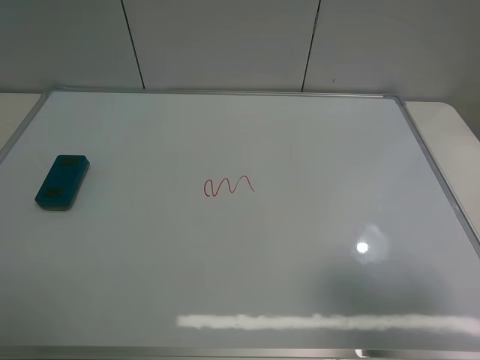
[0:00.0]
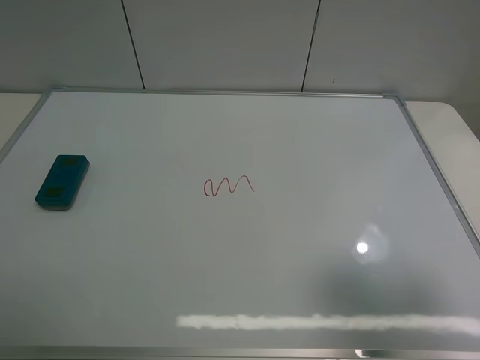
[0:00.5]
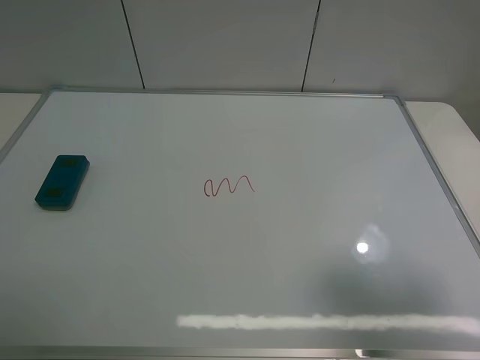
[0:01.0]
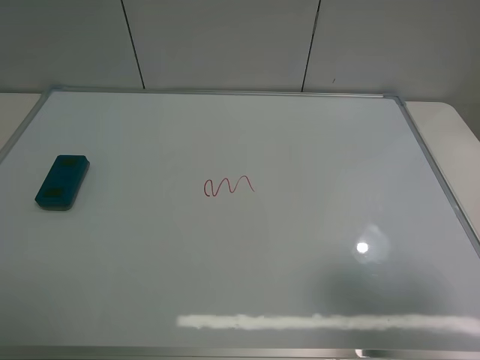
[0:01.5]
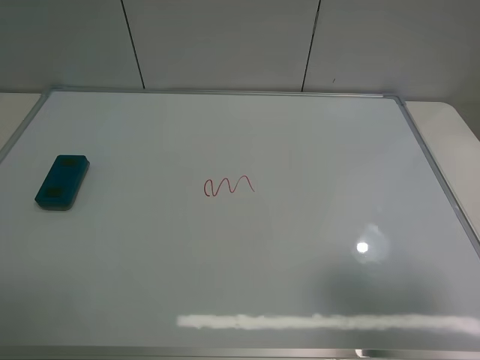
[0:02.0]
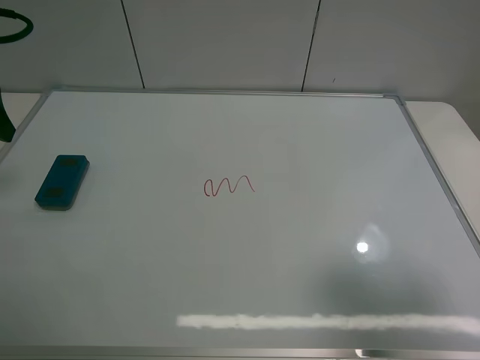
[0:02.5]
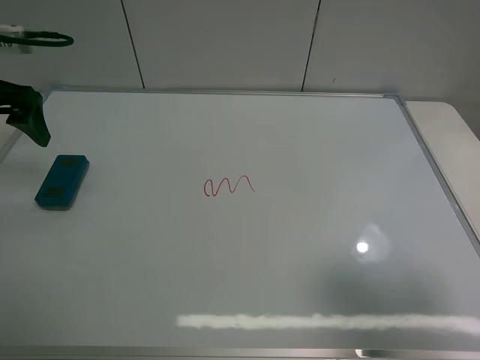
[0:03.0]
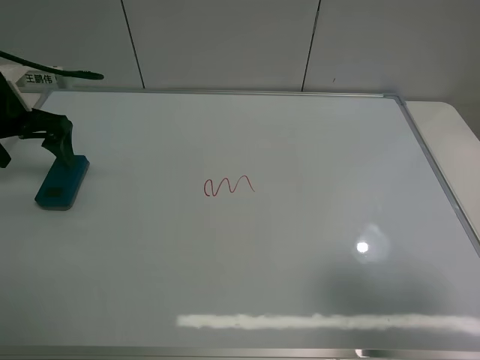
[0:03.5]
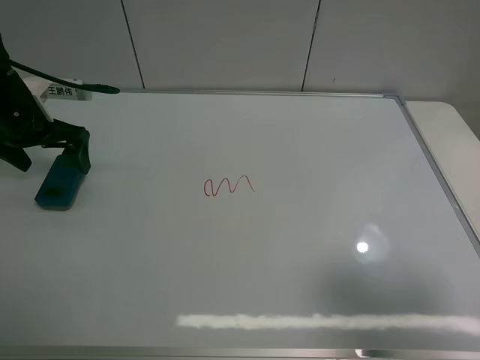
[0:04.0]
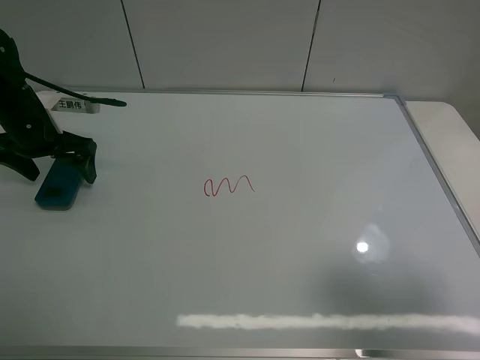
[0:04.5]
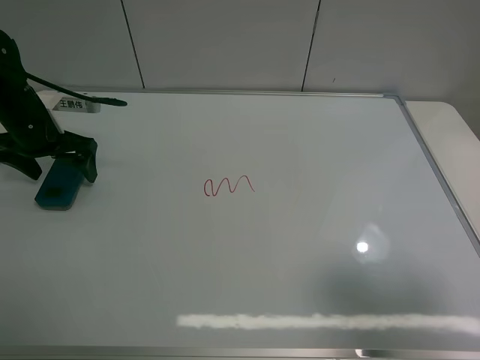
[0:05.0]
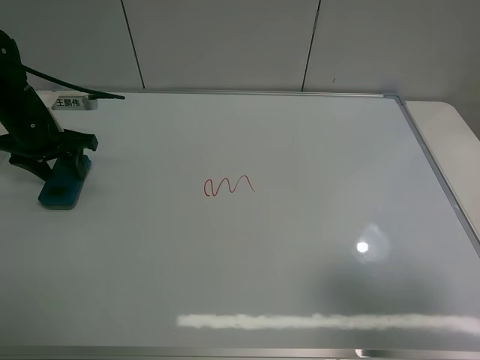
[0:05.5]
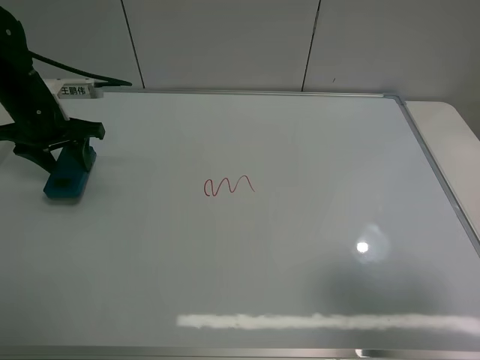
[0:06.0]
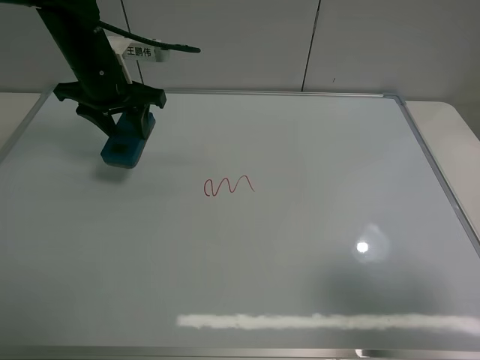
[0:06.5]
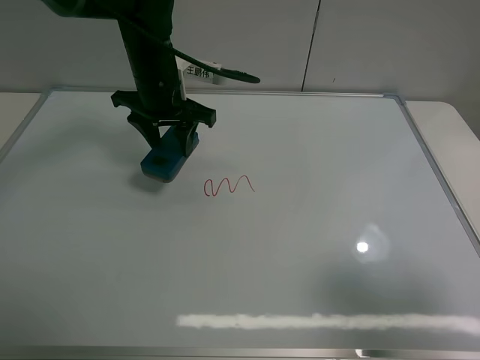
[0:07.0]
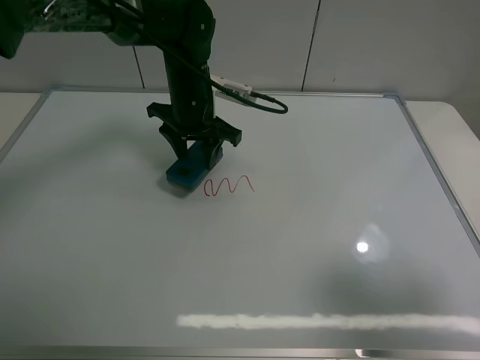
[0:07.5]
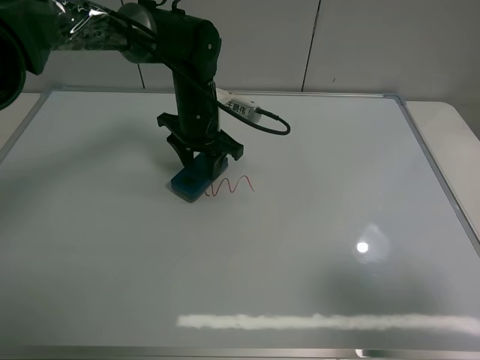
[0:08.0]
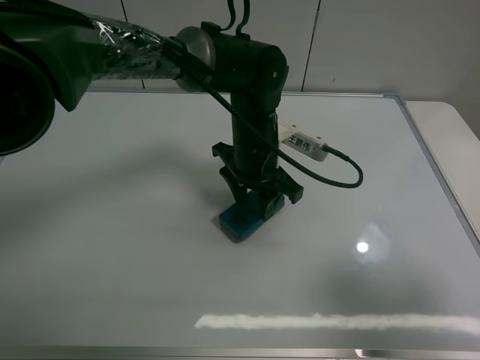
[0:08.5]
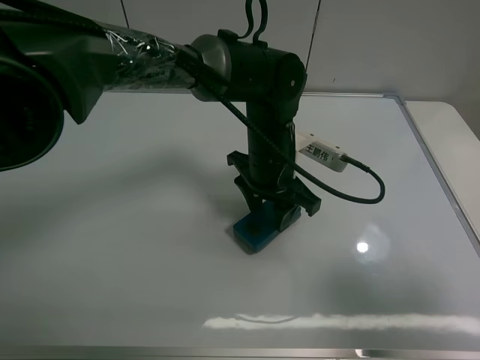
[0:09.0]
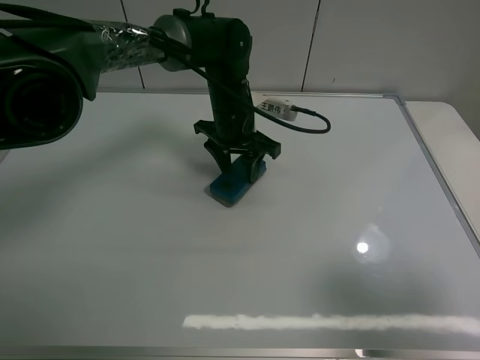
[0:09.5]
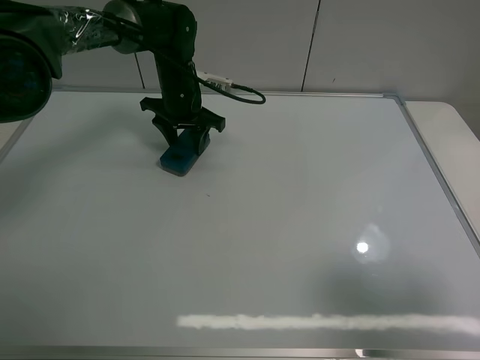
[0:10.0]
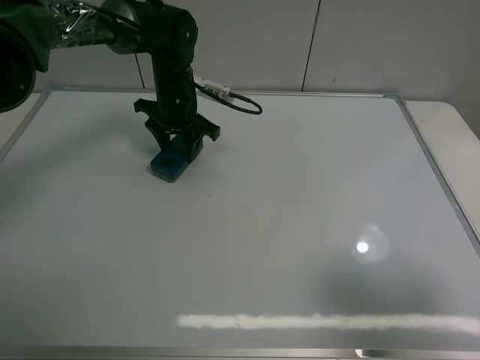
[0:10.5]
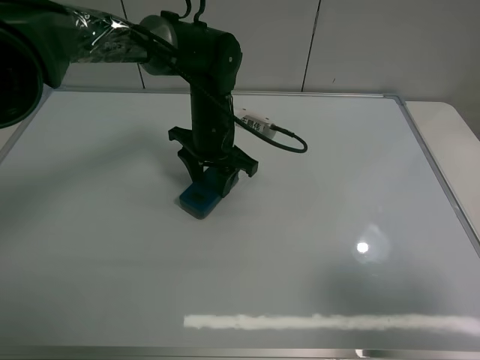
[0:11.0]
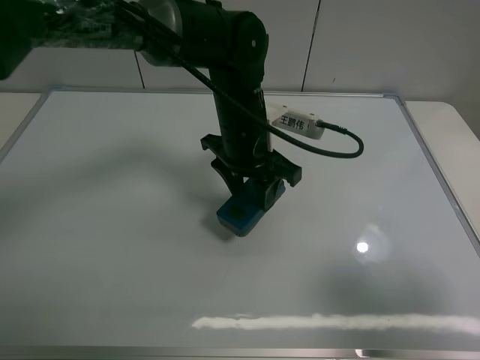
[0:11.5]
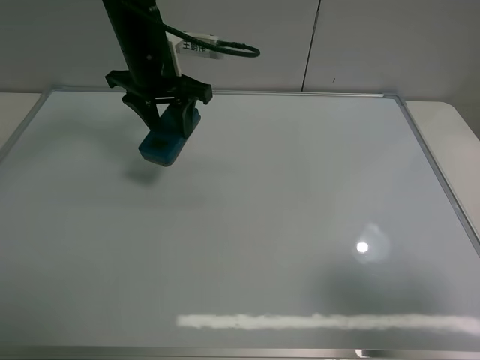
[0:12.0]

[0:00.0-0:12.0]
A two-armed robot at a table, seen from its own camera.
Task of the whole recording: use the left claw to pick up the whiteboard eraser, wipe the notes on the whiteboard clean, and then put them back in place.
Step, 0:00.0 to 0:05.5: Grasp the eraser with the left gripper.
Step, 0:06.0 to 0:11.0: Grasp the eraser and wipe the blackboard with the left gripper.
0:02.0 to 0:04.0: The left gripper goes approximately 25 cm forward and downward.
0:04.0 to 0:06.0: The left gripper closes its fingers.
0:06.0 to 0:08.0: The left gripper shifts some 25 cm to the right.
0:08.0 to 0:10.0: The left gripper goes roughly 5 cm forward, and goes to the right and returns, approximately 10 cm each way.
0:10.0 to 0:12.0: The left gripper goes roughly 10 cm upward and backward.

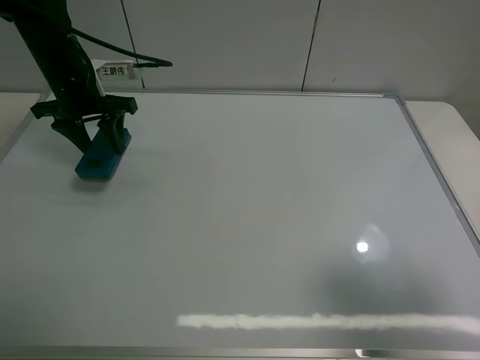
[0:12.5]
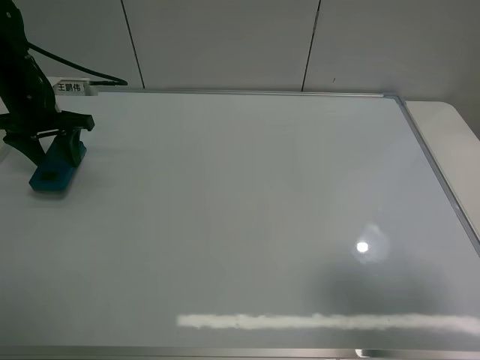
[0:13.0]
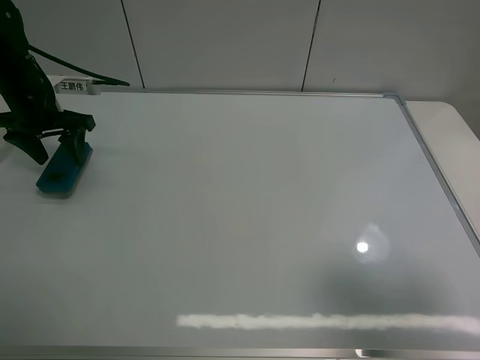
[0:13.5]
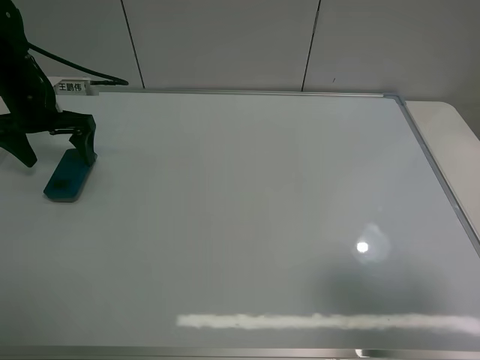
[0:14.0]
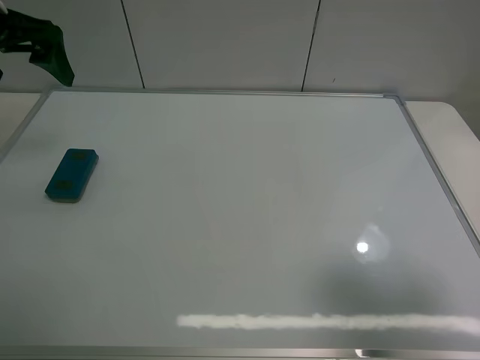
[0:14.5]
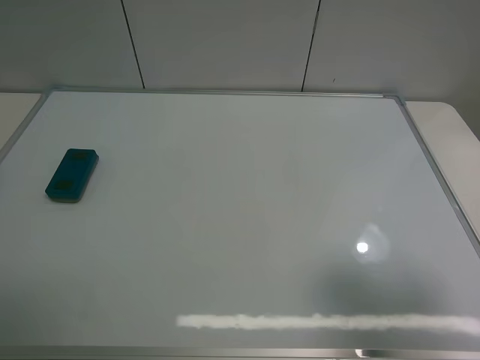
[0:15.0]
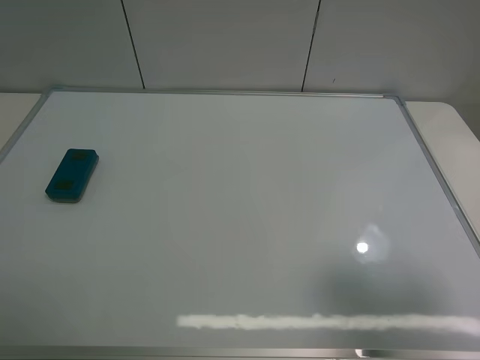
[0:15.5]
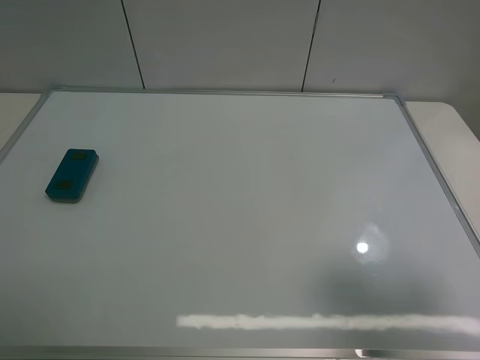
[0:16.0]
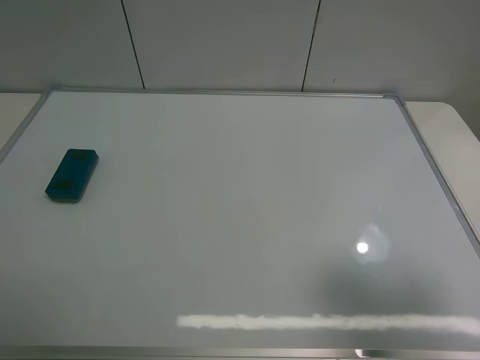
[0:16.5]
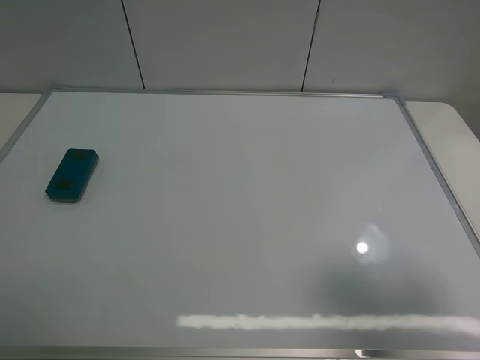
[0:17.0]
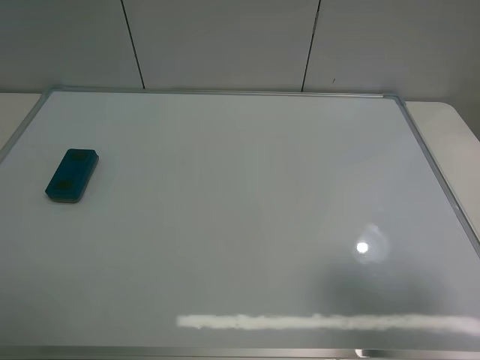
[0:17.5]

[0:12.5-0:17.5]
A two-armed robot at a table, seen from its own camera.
Task of the whole recording: use the left claw to pick up the whiteboard eraser, wipe the notes on the whiteboard clean, and then put them back in place.
0:12.5 to 0:15.0: The left gripper travels backward and upward by approximately 30 cm, and opens.
